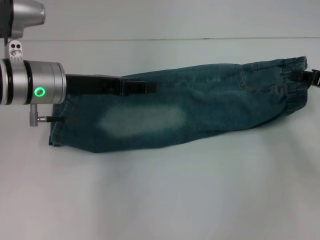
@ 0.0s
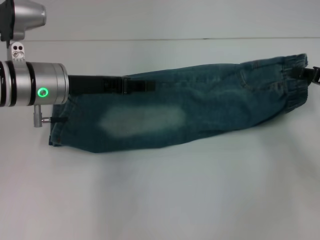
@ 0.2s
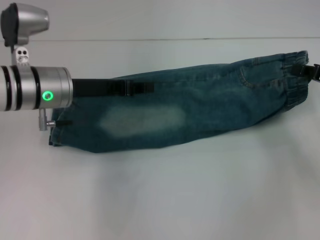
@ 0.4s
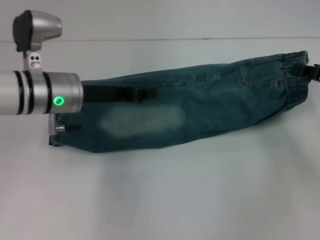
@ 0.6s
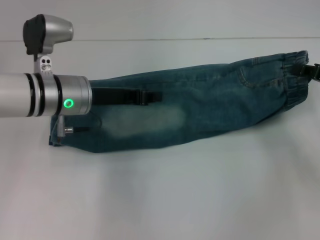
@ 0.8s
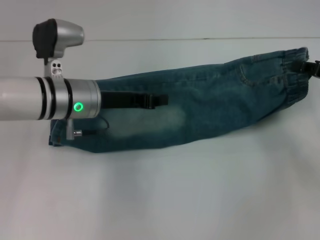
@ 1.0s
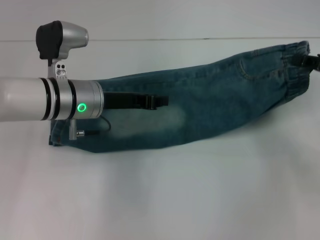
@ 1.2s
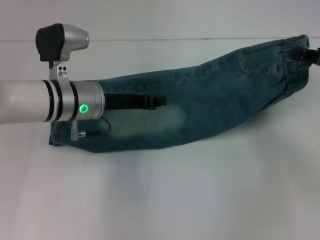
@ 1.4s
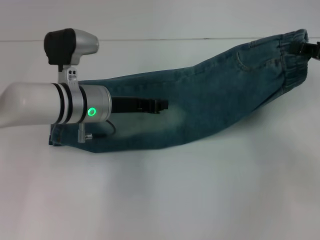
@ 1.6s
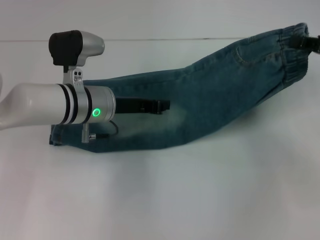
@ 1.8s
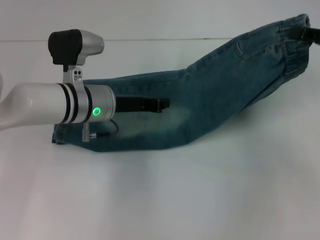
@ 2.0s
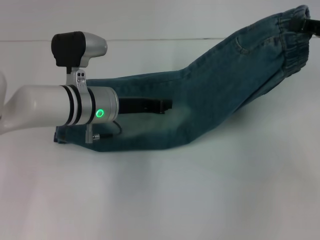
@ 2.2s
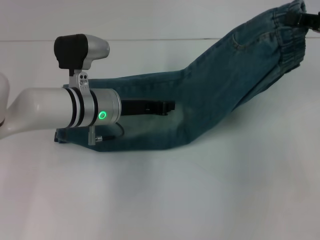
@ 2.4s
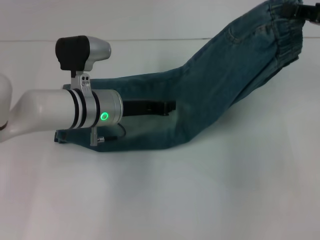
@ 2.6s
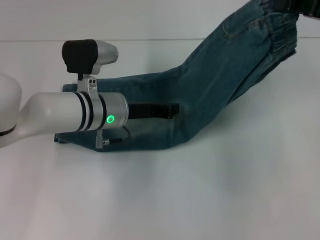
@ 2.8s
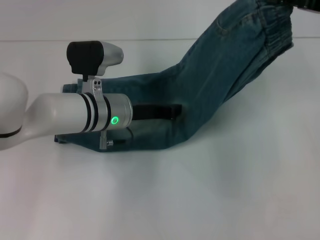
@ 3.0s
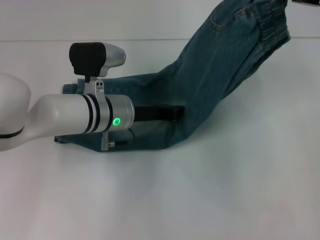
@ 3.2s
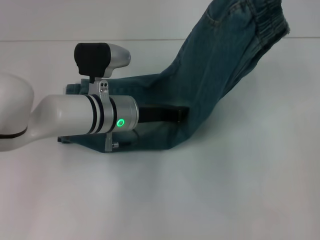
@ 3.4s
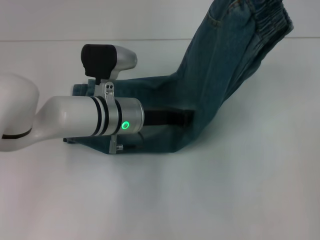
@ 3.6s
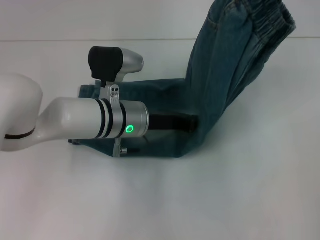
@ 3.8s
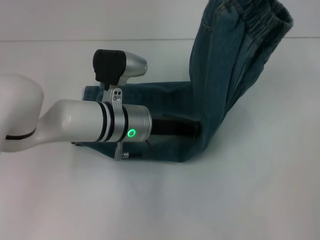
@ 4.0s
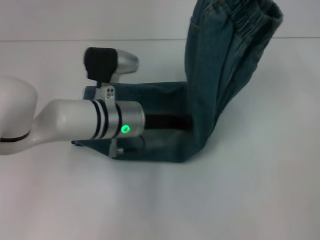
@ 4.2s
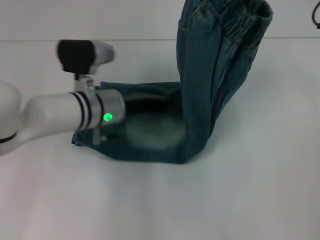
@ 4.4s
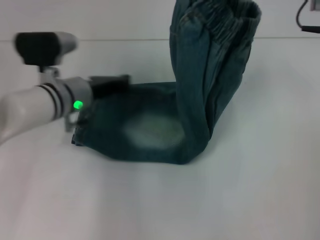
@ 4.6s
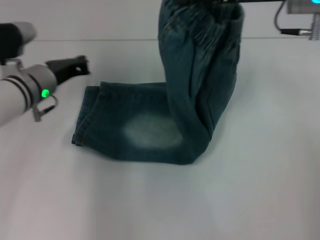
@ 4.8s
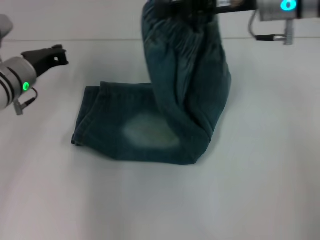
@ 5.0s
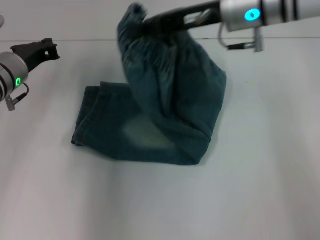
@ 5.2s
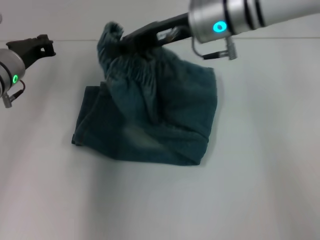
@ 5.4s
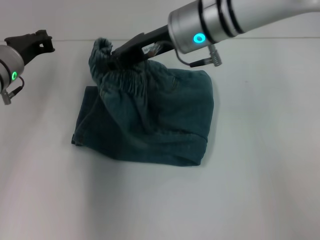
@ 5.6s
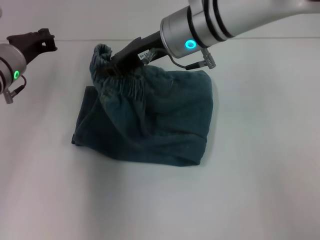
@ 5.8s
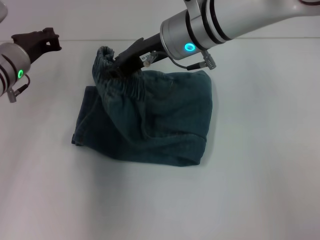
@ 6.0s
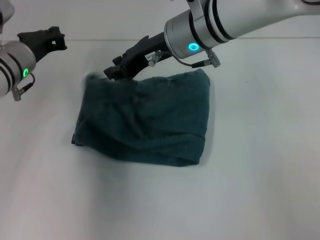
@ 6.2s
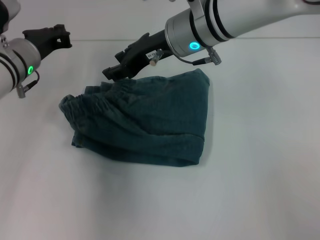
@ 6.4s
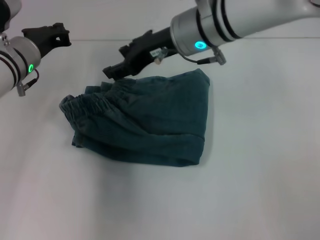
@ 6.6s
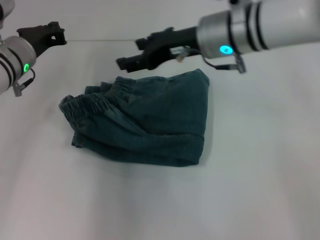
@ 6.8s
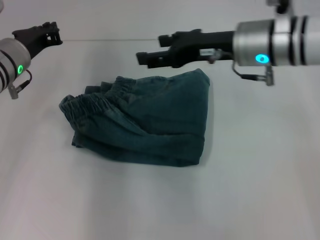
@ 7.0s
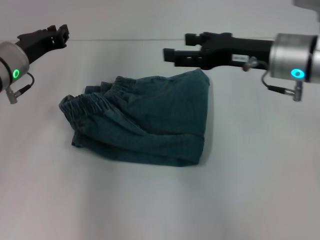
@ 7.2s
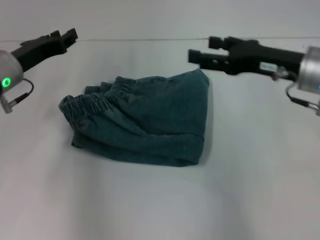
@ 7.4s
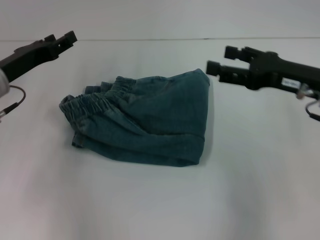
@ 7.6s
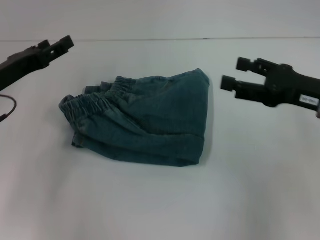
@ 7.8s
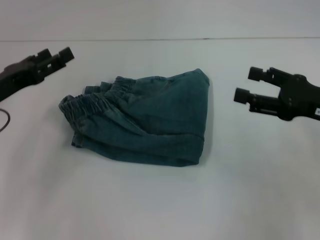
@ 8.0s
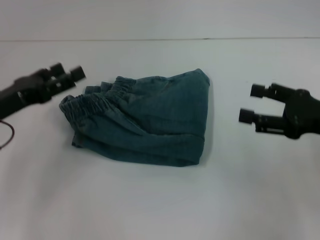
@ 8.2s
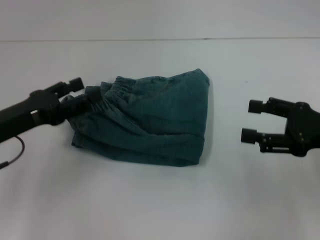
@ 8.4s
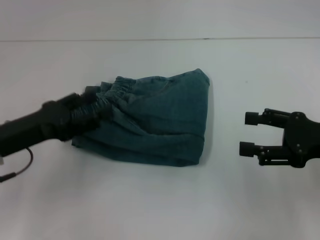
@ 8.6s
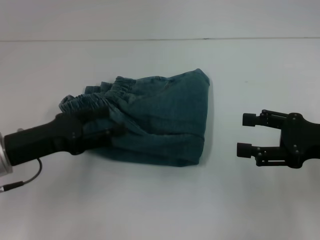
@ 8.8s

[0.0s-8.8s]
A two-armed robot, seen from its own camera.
Step, 0.0s to 4.4s: Press the middle of the pants with your left hand.
Step, 4.6s to 6.2s: Fold to the left with your right hand.
0.0s to 1.4s: The left gripper ends up about 5 cm from where it was, and closes up.
1.4s to 3.0s: The right gripper goes approximately 10 cm upward.
3.0s to 4.4s: The right gripper heads to the left, covering roughly 5 cm.
4.4s to 5.8s: The two grippers go approximately 15 cm to the left.
5.8s to 7.4s: The right gripper moves to the right and backward, approximately 20 cm, and opens.
7.4s to 8.8s: The right gripper goes about 10 cm backward and to the right; the left gripper is displaced backward by about 10 cm, and opens its fingers.
